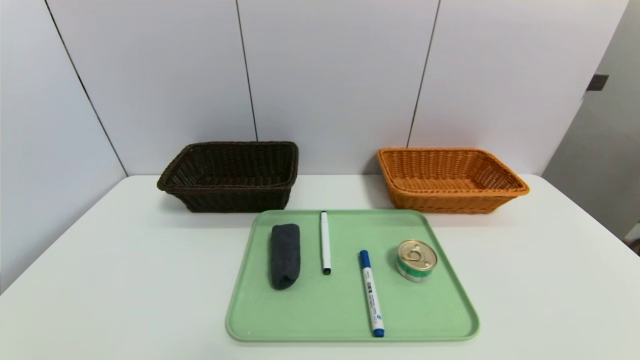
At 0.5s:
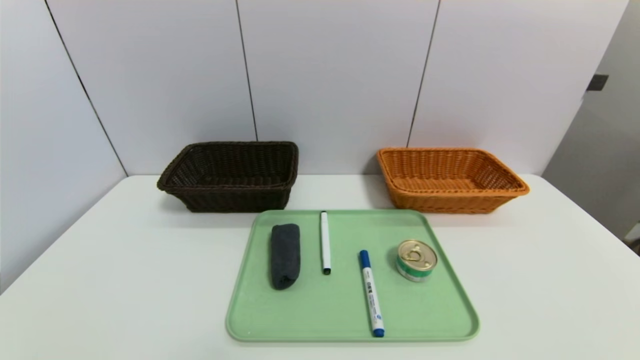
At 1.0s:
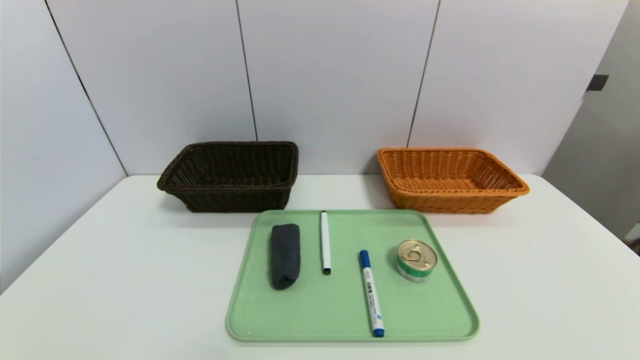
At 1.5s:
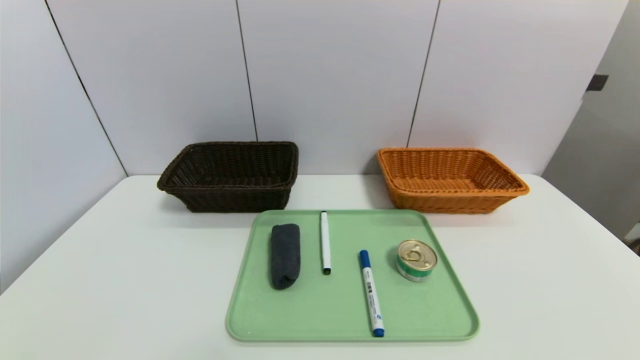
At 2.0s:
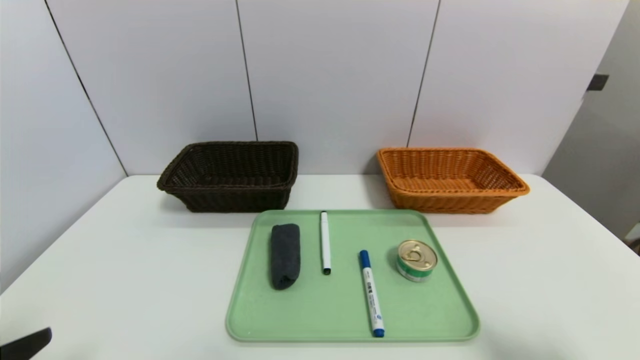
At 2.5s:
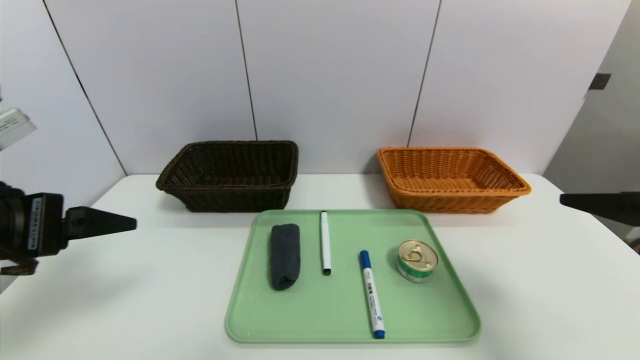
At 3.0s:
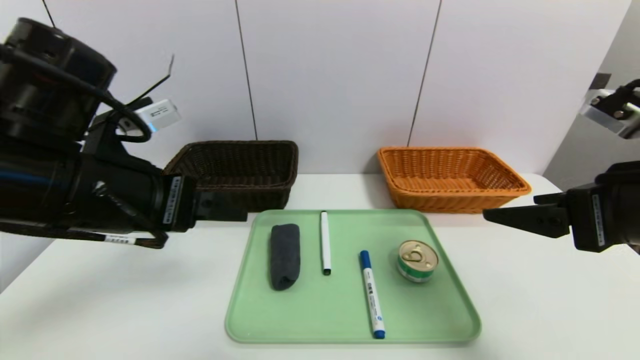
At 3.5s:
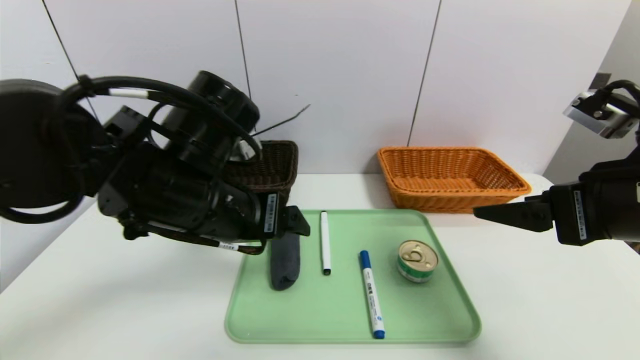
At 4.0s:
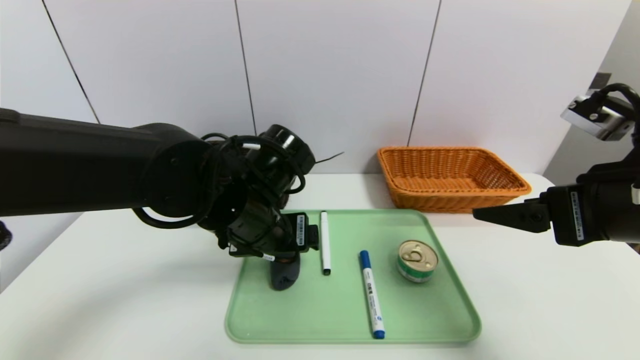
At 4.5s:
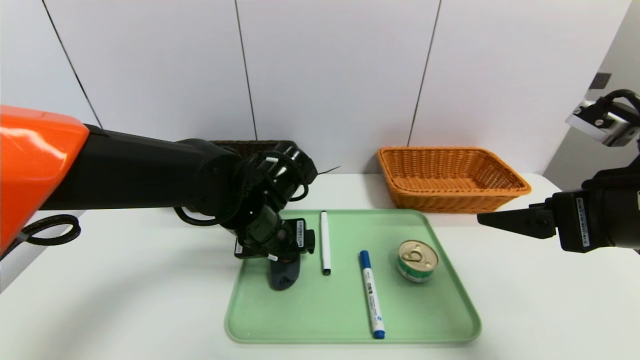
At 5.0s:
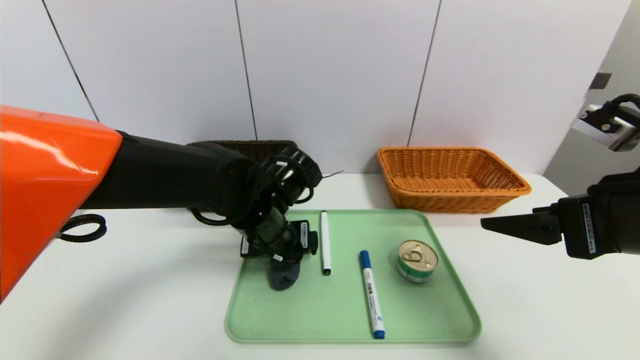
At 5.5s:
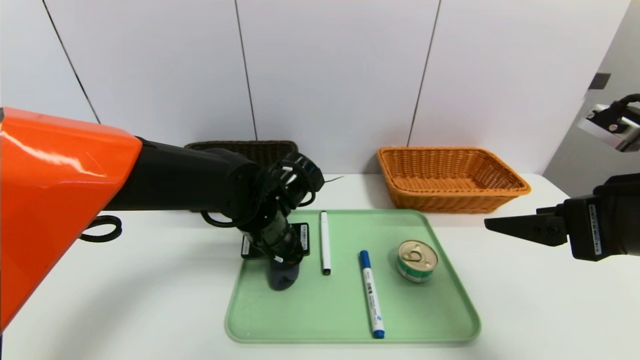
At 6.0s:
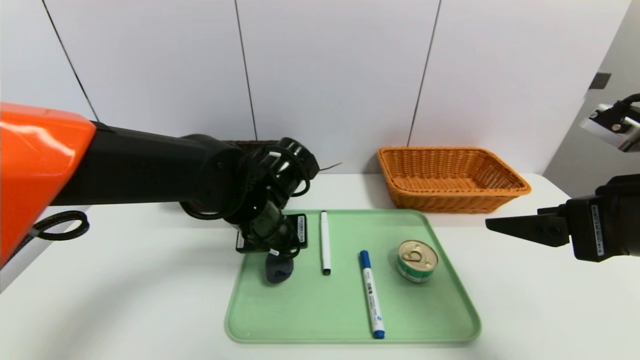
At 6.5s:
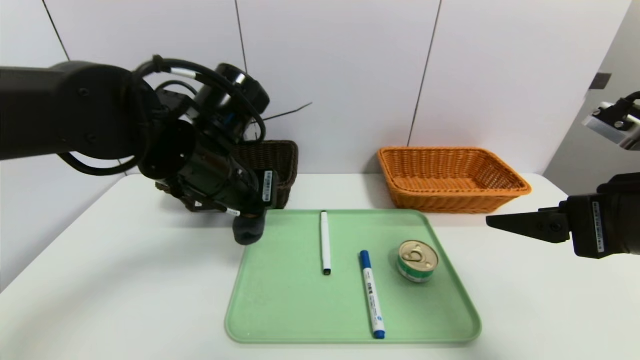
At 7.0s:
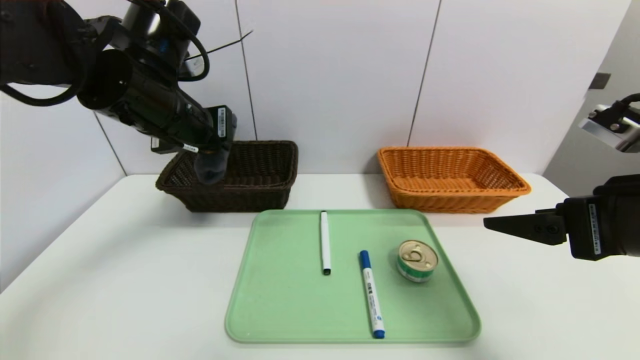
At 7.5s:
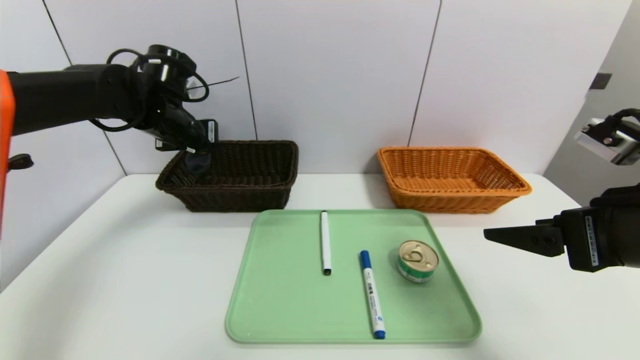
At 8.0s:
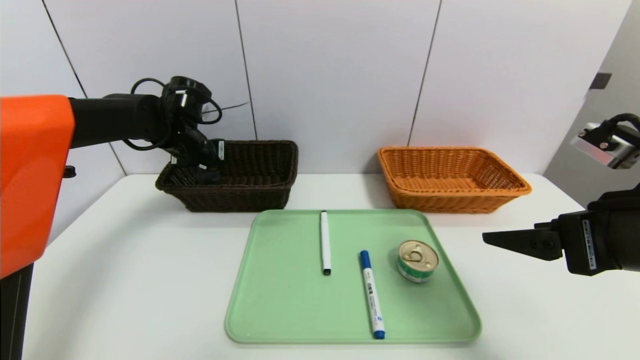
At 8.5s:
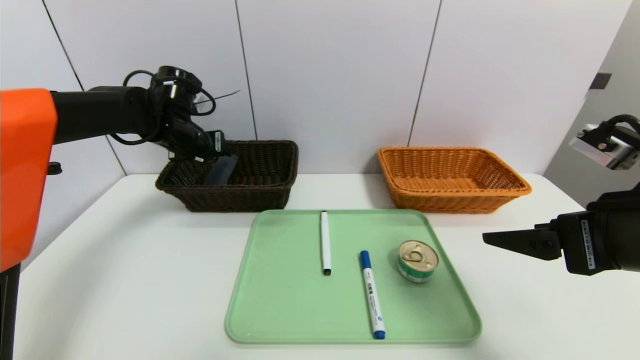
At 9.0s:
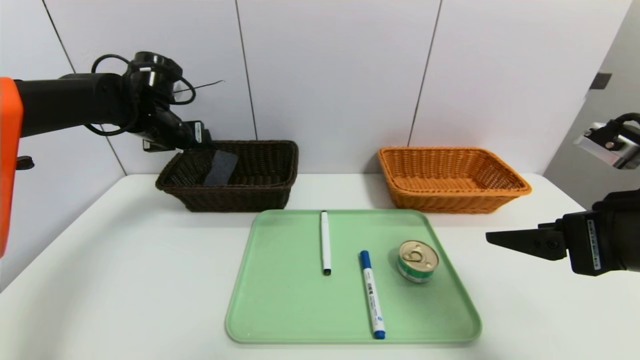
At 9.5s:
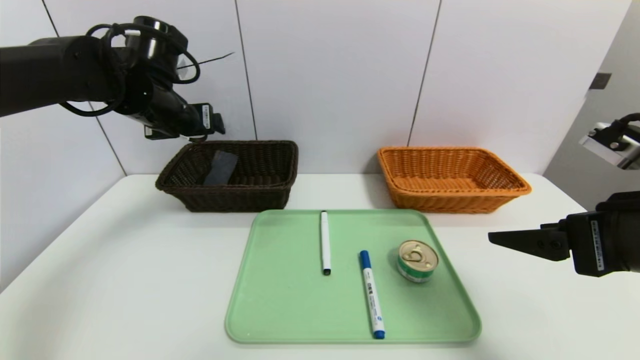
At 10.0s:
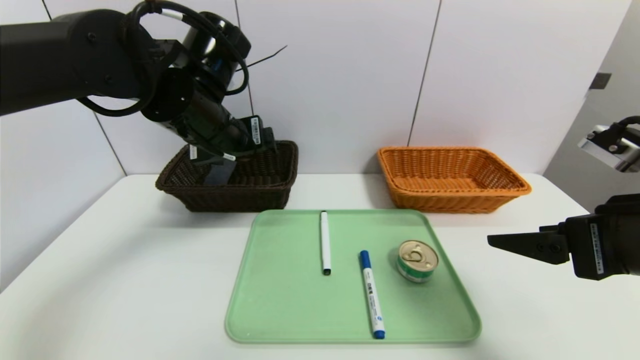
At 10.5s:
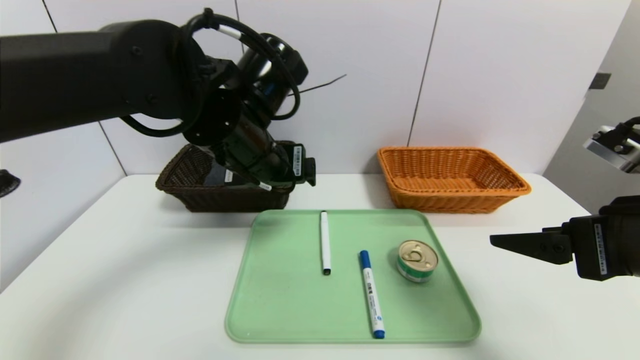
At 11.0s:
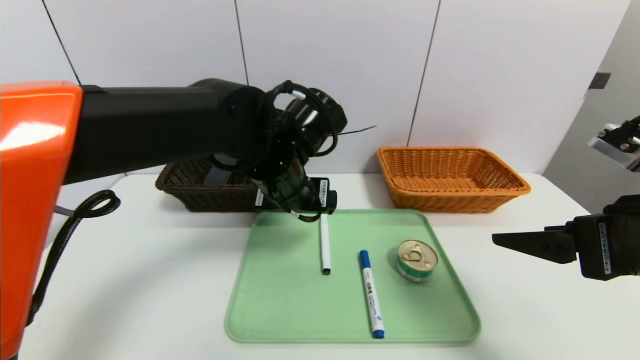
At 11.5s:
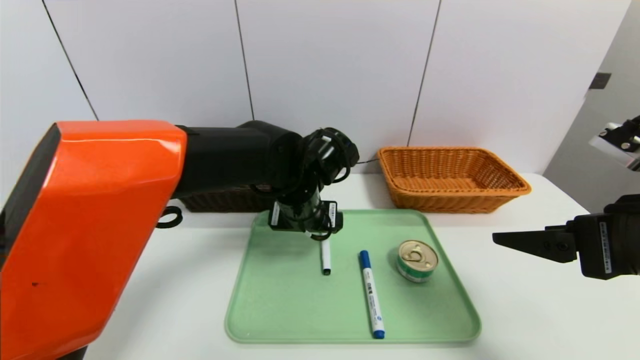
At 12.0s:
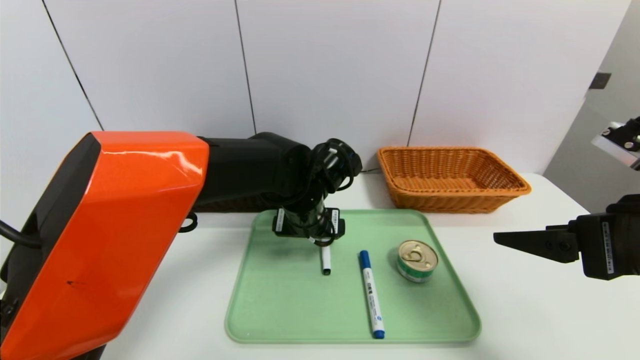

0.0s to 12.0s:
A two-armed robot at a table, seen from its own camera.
Task of the whole recording: place the food in the right basket with the right gripper, and place the non food items in the left basket with the left gripper.
Step, 0.0s to 8.5s: Grasp the grey towel and put it in the left basket.
0.0s to 2.0s: The right gripper heads upward and forward, covering some 15 cm.
2.0s to 4.0s: The left gripper shifts approximately 30 cm forward and to the right; the right gripper moves forward and to the left, some 15 cm.
4.0s to 6.0s: The left gripper closes.
6.0s to 8.0s: The left gripper shifts some 20 cm to the left and forward.
8.0s to 10.0s: The left gripper travels backward, to the right and upward by approximately 20 cm, and opens up.
10.0s to 12.0s: The left gripper shifts some 20 cm downward and to the right.

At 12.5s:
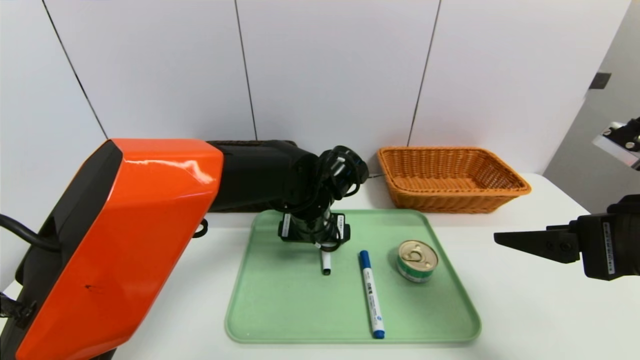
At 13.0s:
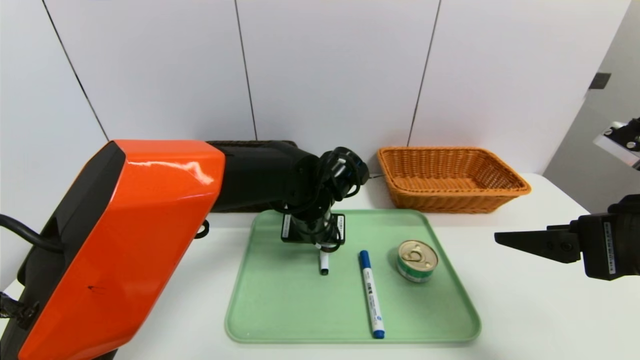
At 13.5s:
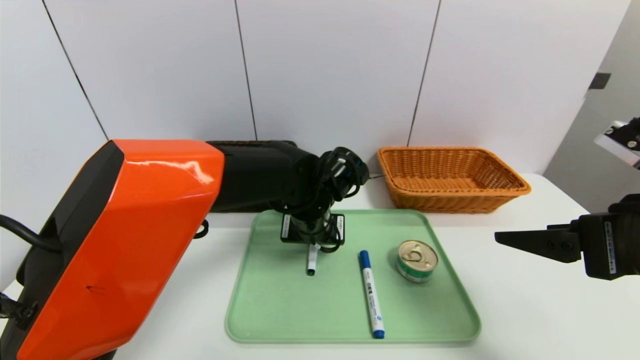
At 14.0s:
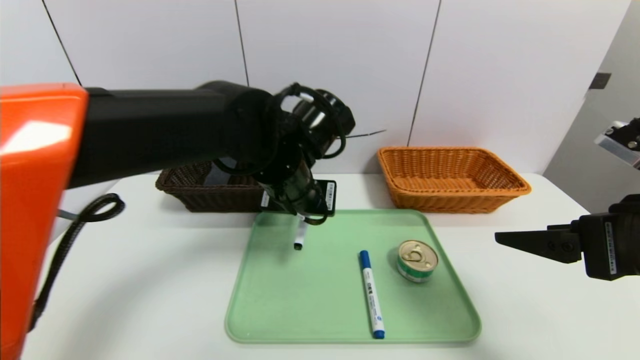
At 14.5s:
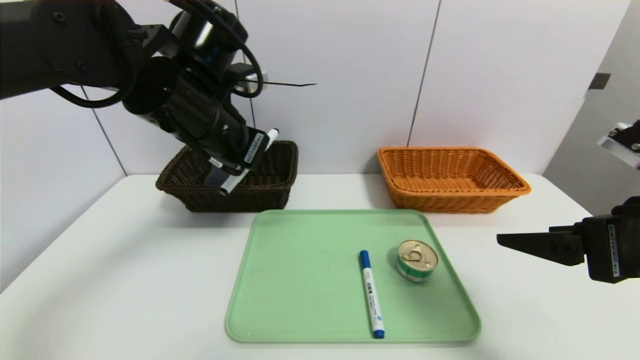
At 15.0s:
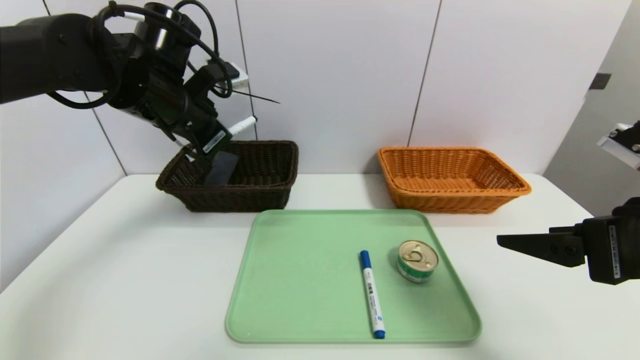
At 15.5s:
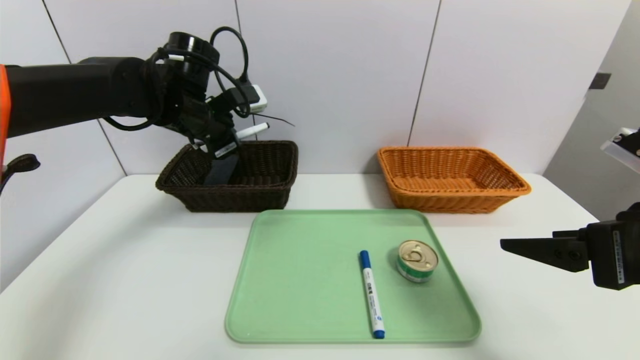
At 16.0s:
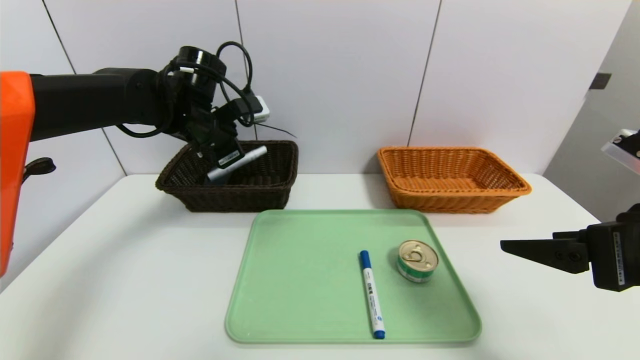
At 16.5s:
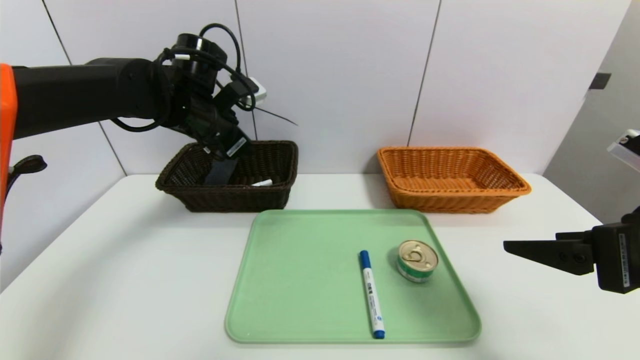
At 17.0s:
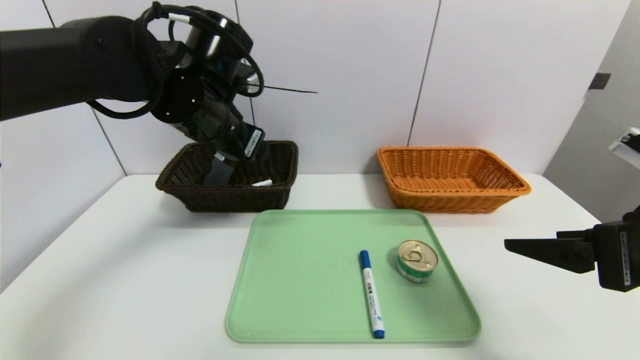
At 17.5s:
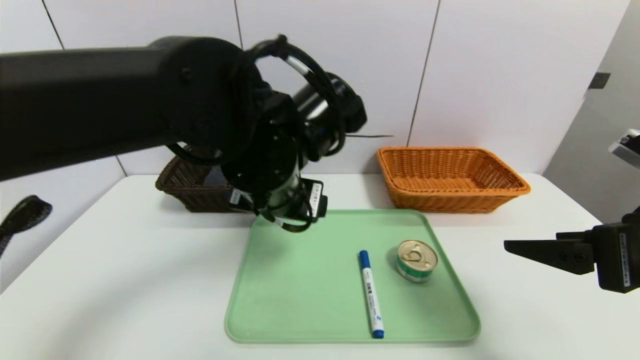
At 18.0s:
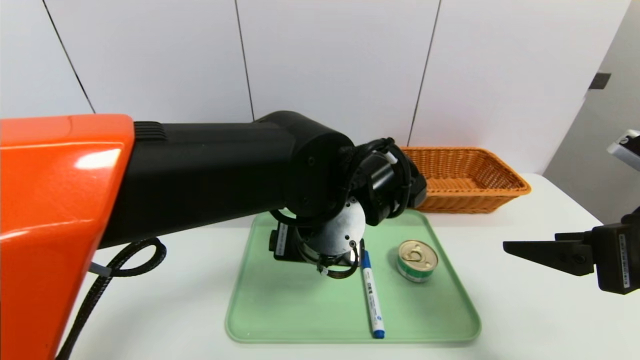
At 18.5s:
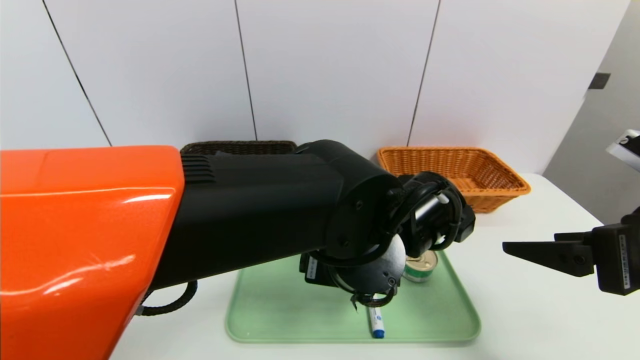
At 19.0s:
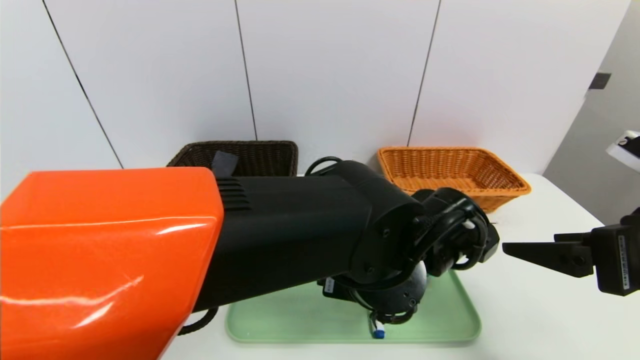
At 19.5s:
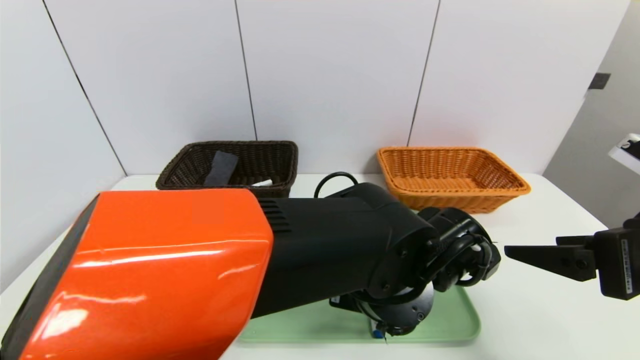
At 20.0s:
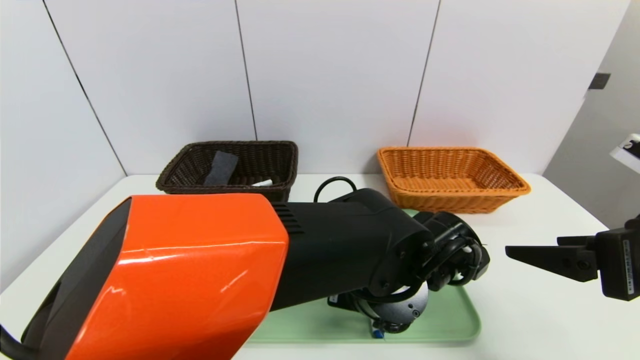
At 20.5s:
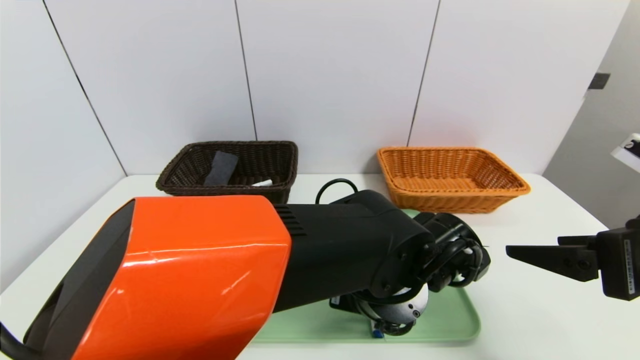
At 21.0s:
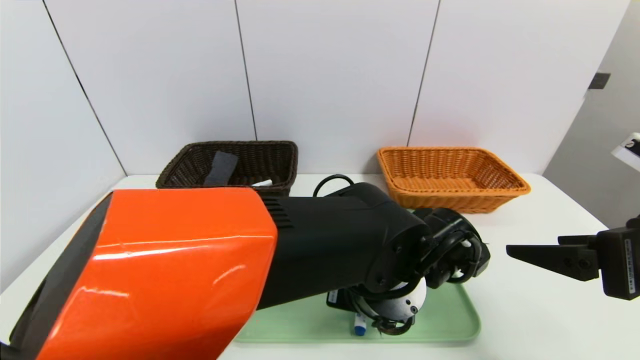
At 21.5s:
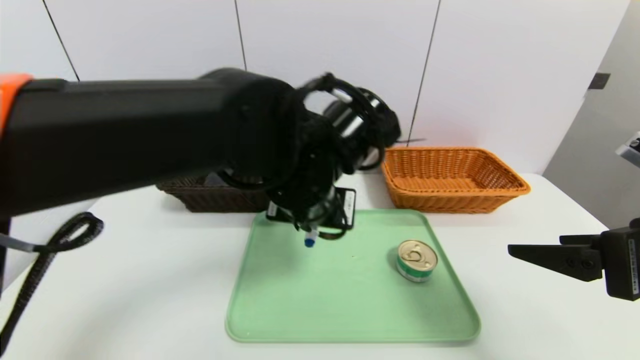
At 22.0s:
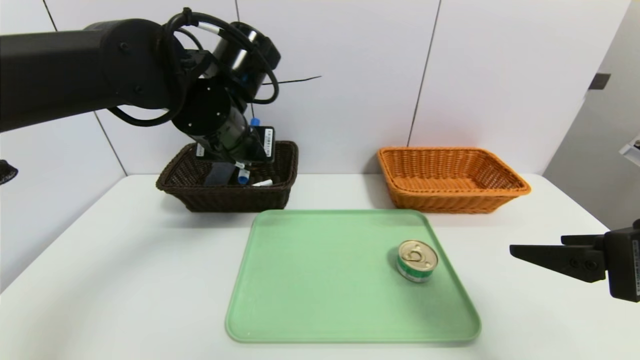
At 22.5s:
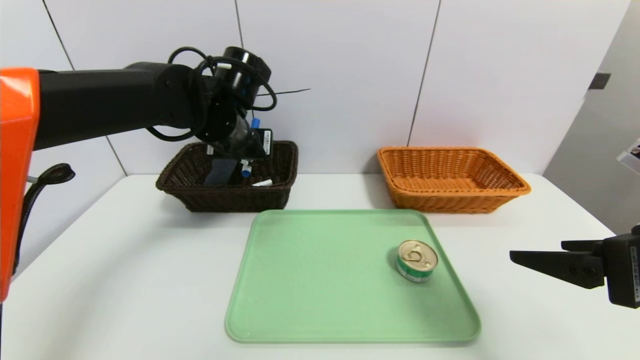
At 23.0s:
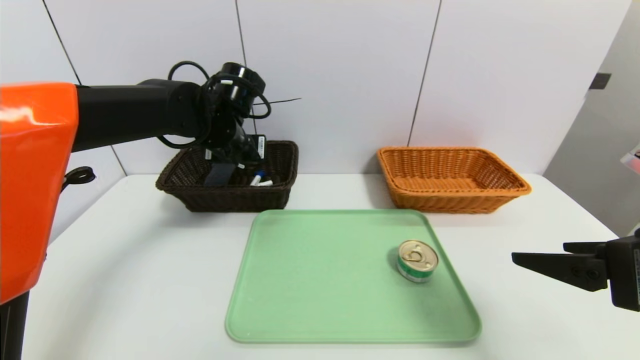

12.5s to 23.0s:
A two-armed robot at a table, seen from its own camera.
Task of the whole recording: place the food in the right basket with the right gripper, and place the non food items in the left basket with the left gripper.
Step, 12.5s to 16.5s: Grasp the pen container and put it in the left basket.
Step, 17.0s to 23.0s: Grasp the blue marker and put it in the left basket.
12.5s to 14.5s: The left gripper goes approximately 20 cm upward and to the left, and closes its fingers.
14.5s to 16.5s: The left gripper heads forward, covering about 10 cm, and opens.
16.5s to 19.0s: The left gripper moves to the right and backward, some 30 cm.
19.0s to 21.0s: The left gripper closes its fingers.
21.0s to 23.0s: The left gripper is displaced to the left, forward and upward by some 30 cm, and opens.
